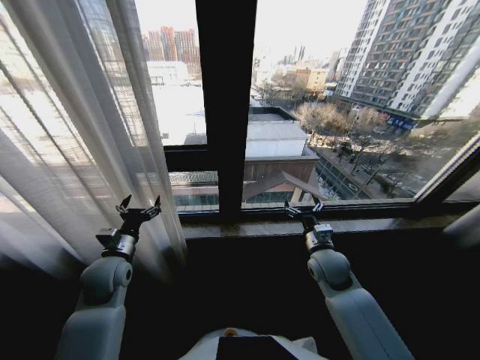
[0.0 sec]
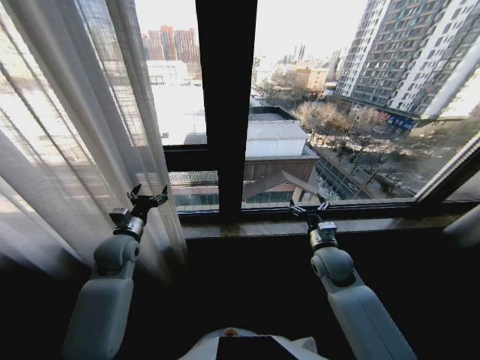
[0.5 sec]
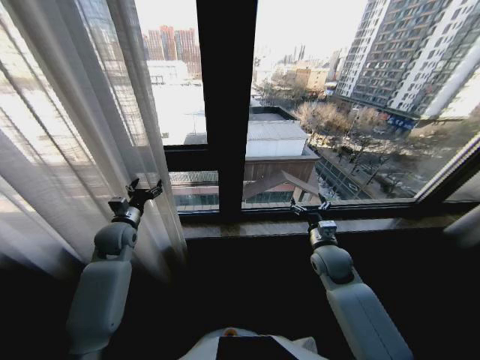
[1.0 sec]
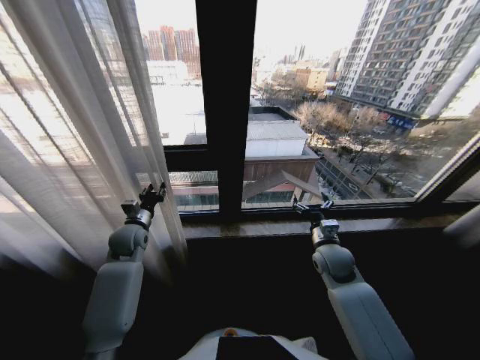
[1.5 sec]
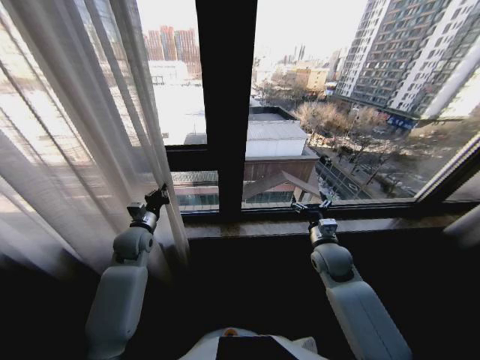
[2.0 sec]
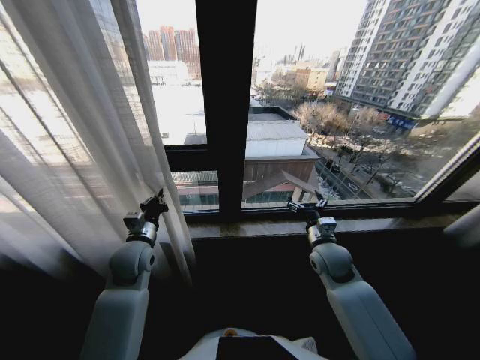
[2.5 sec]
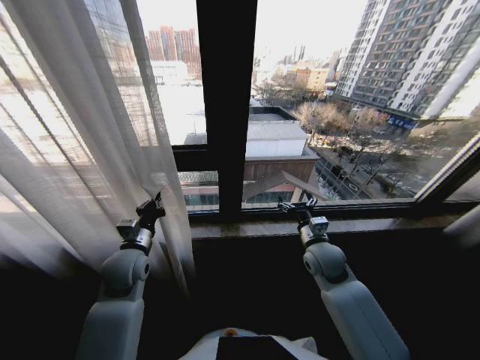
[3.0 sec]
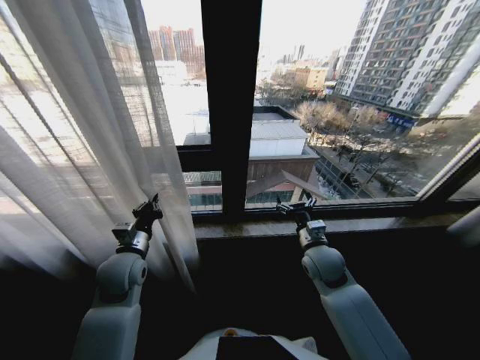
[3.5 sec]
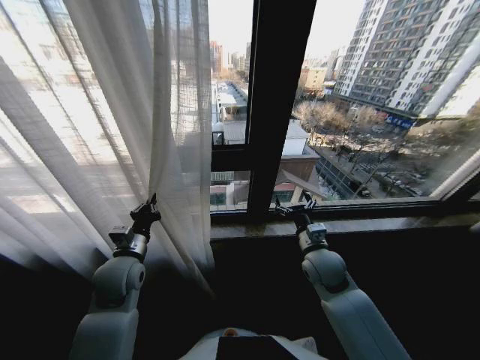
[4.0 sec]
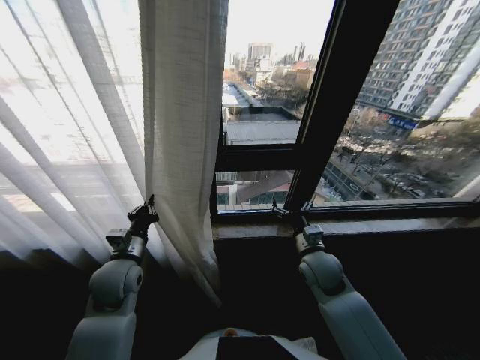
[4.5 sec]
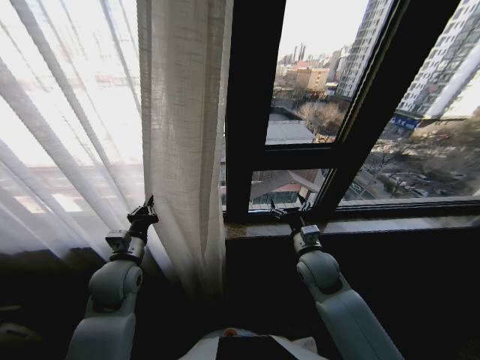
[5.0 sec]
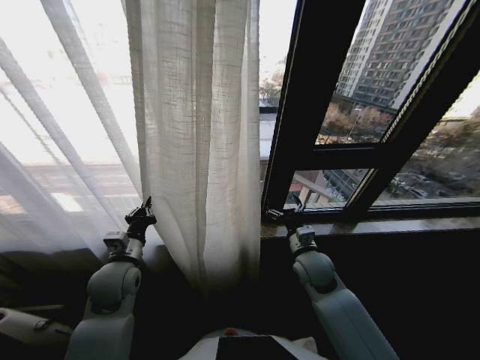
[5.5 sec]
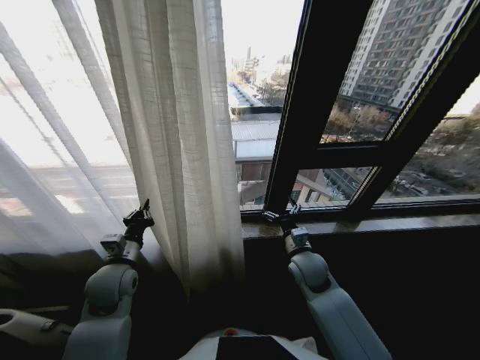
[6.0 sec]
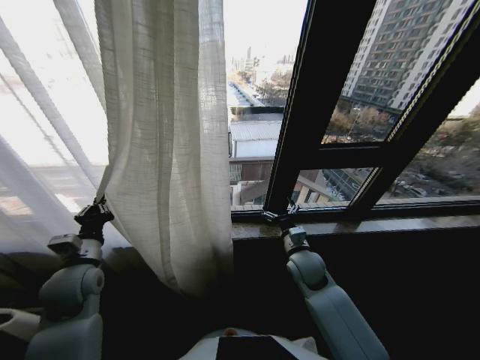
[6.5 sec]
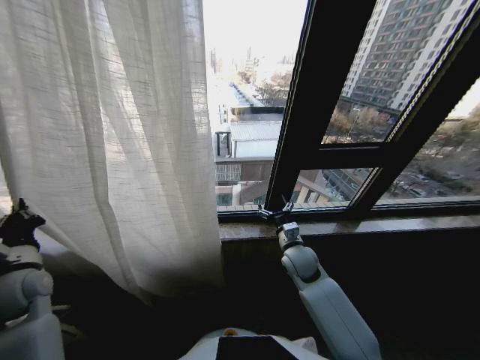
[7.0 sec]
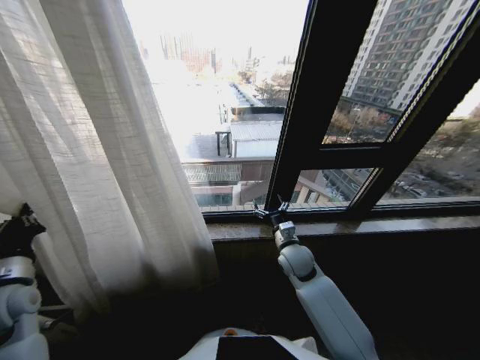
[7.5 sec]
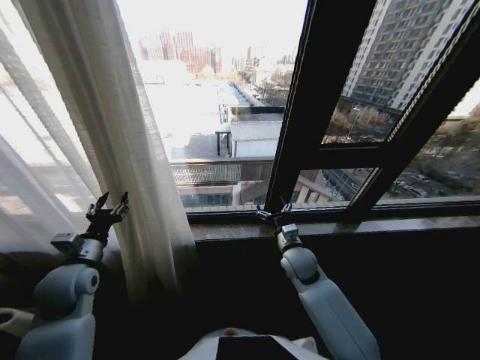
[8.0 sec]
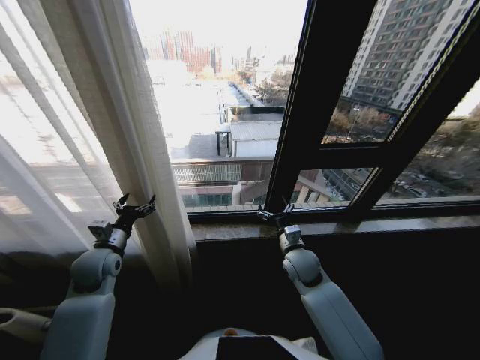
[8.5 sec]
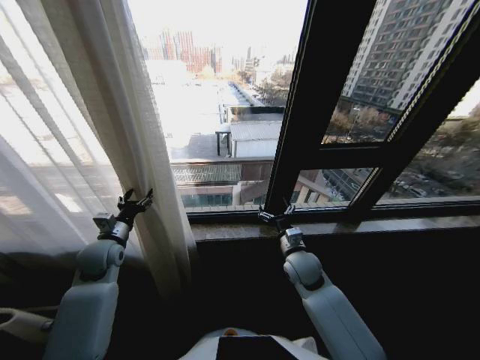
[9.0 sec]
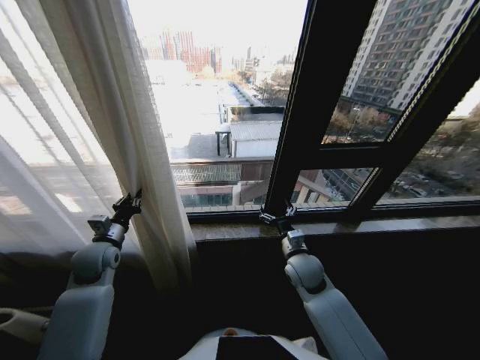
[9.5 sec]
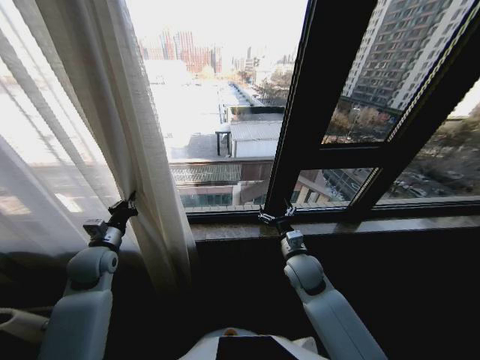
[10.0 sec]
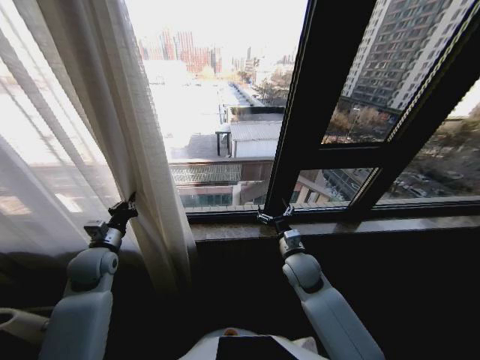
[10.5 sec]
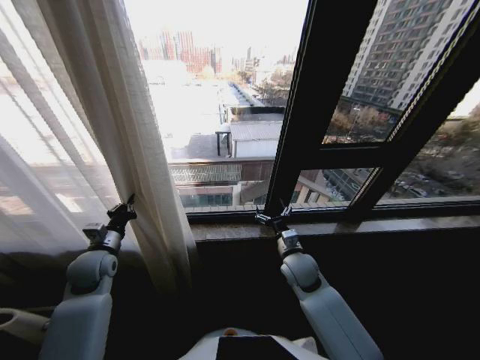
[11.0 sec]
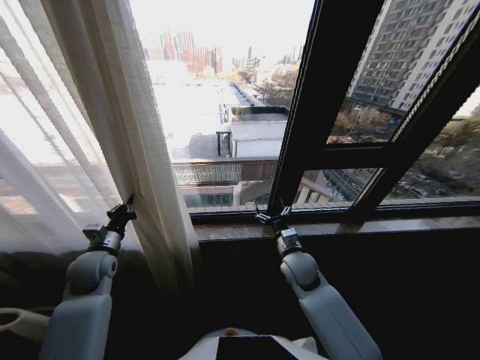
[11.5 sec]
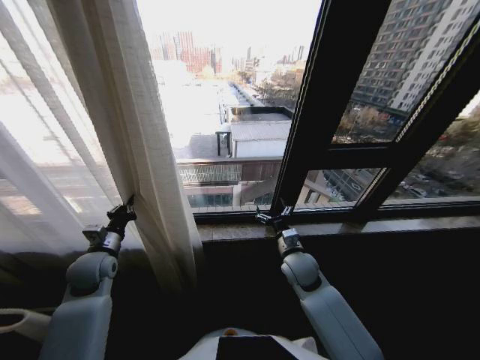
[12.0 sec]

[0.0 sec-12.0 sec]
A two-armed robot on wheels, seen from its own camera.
Task of the whole recording: Open the curtains by pulling them apart, changing their state from closed to fully open.
0.0 sec to 2.0 sec: The left gripper is displaced forward by some 10 cm, and closes its fingers.
2.0 sec to 4.0 sec: The left gripper is displaced backward by about 10 cm. The right gripper changes place by approximately 5 cm.
6.0 sec to 8.0 sec: The left gripper heads to the left, covering some 10 cm, and opens up.
8.0 sec to 10.0 sec: The left gripper heads forward, covering approximately 5 cm, and closes.
10.0 sec to 12.0 sec: There are only small adjustments of the grippers.

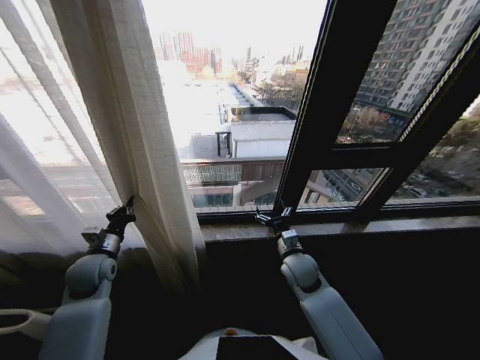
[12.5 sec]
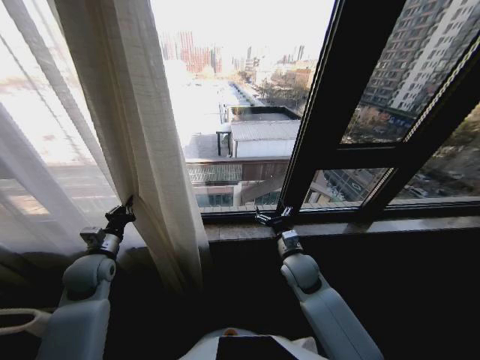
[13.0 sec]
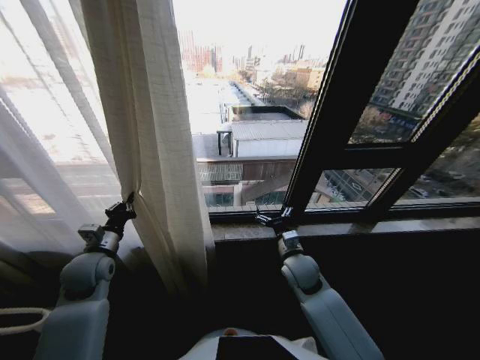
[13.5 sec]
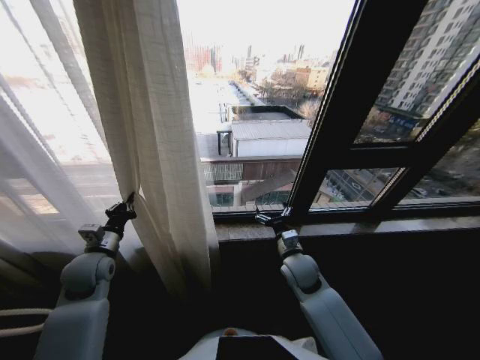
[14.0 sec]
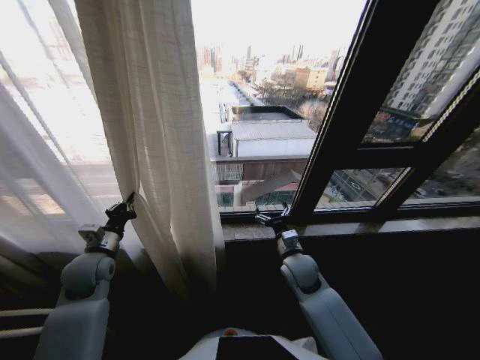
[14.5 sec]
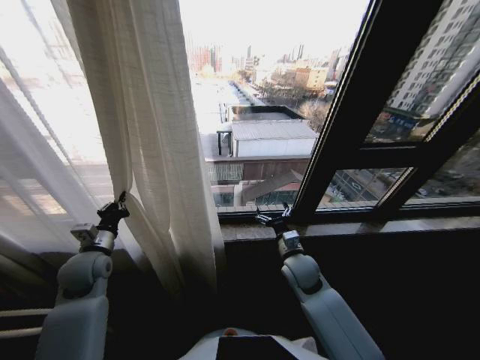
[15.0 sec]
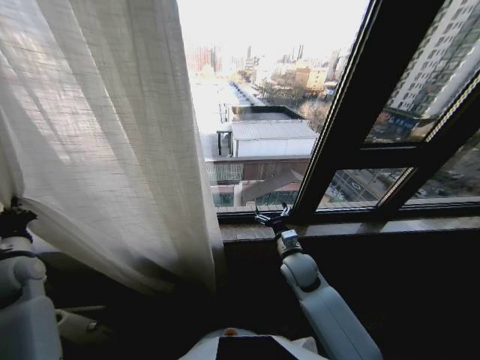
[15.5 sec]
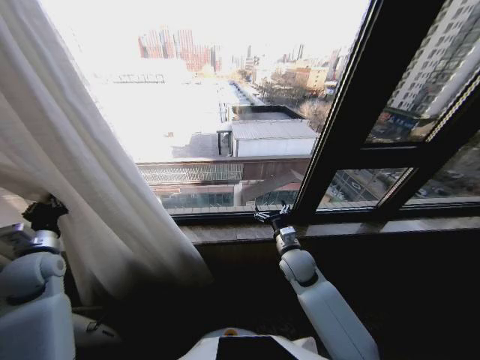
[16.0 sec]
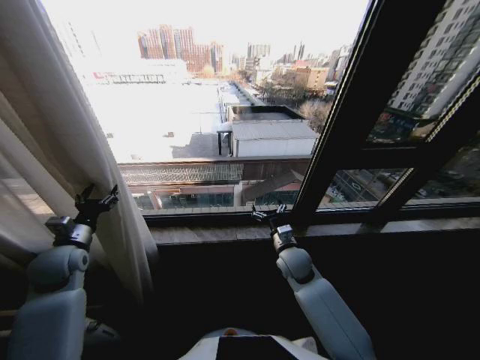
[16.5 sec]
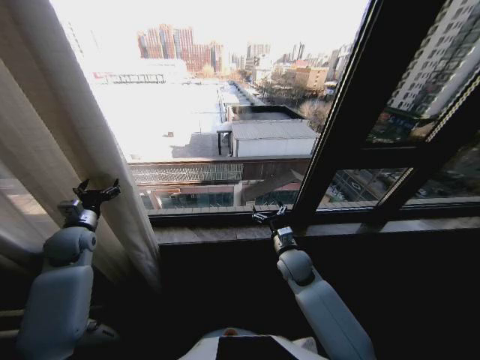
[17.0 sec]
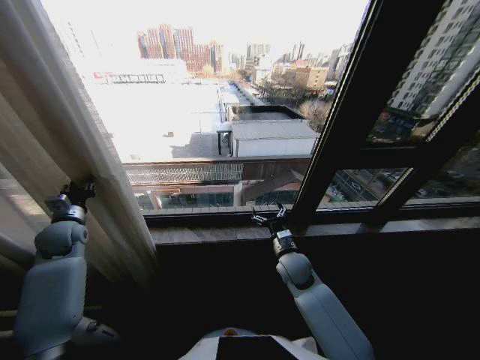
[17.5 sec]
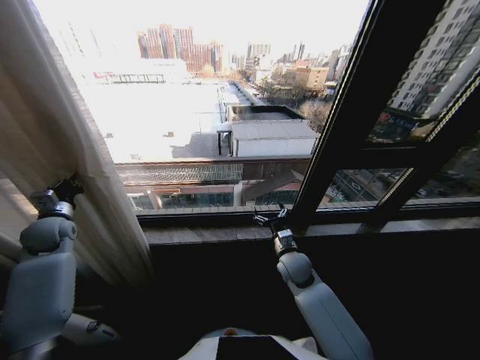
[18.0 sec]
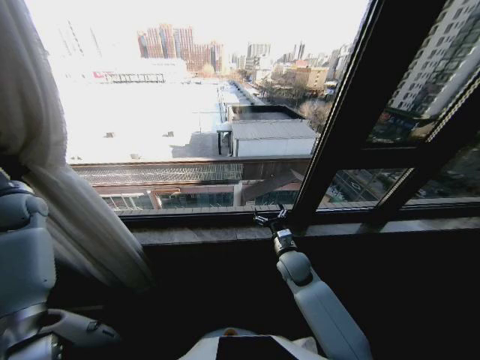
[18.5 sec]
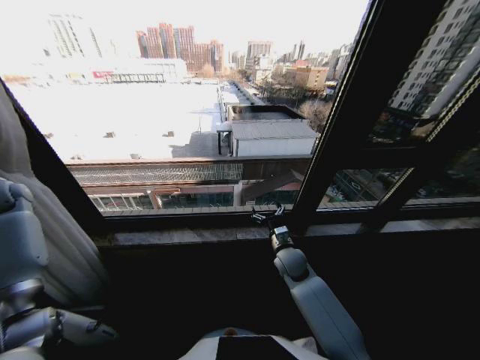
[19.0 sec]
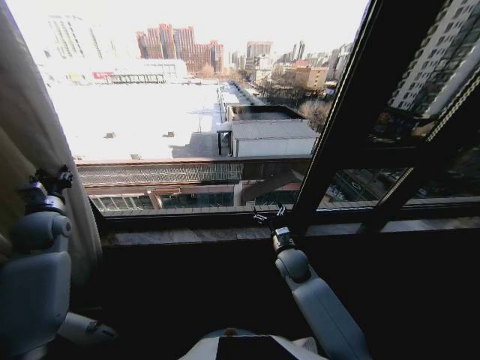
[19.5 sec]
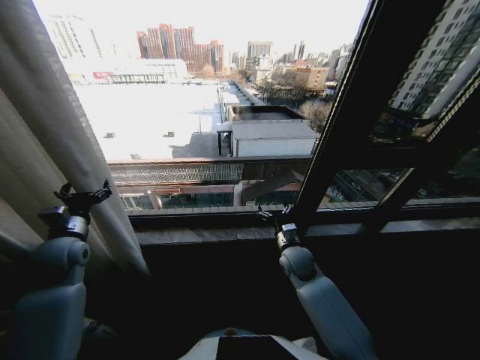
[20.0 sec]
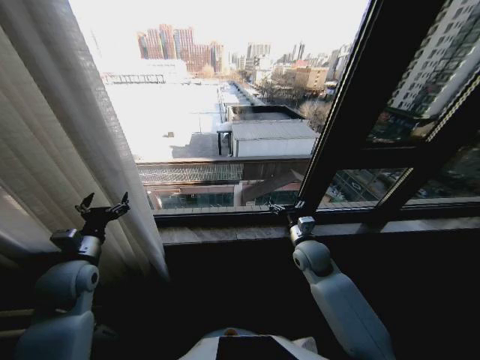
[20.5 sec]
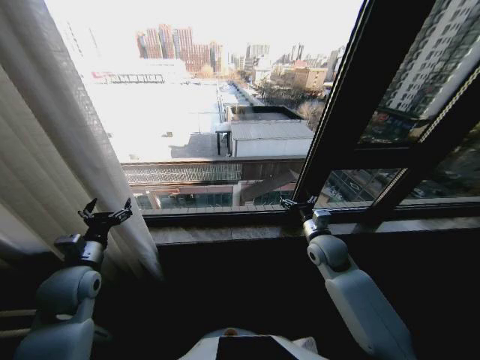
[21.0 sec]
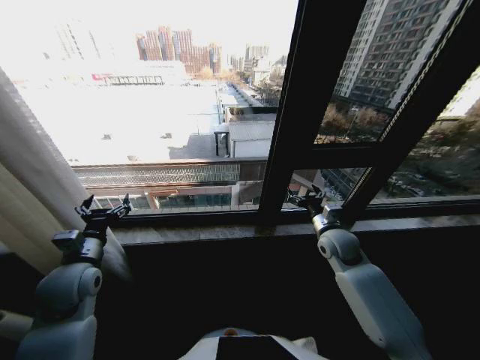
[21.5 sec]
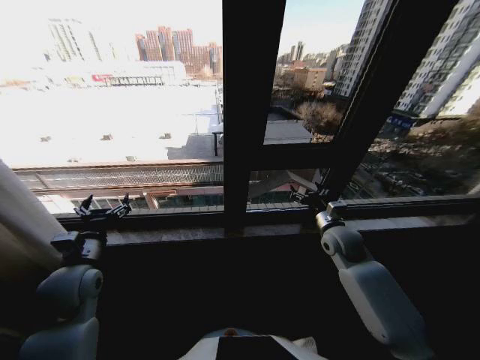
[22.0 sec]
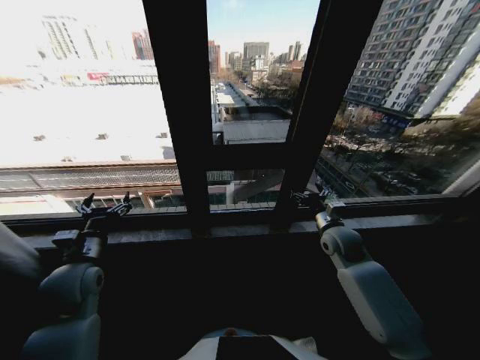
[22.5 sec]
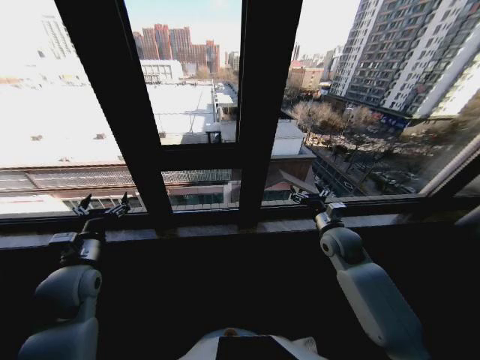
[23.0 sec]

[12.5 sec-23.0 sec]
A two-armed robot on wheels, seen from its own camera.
Task of the whole recording: Open the curtains by pulling them apart, changing their state from closed to fully open.
14.5 sec to 16.5 sec: The left gripper goes about 5 cm to the left, and opens.
16.5 sec to 19.0 sec: The left gripper is displaced to the left, forward and upward by roughly 25 cm, and closes up.
19.0 sec to 21.0 sec: The right gripper is displaced to the right and upward by roughly 10 cm. Meanwhile the left gripper travels to the right, backward and downward by roughly 35 cm, and opens its fingers.

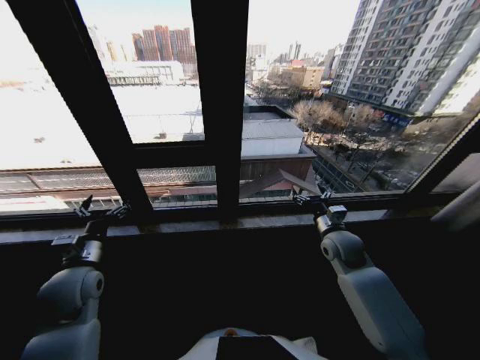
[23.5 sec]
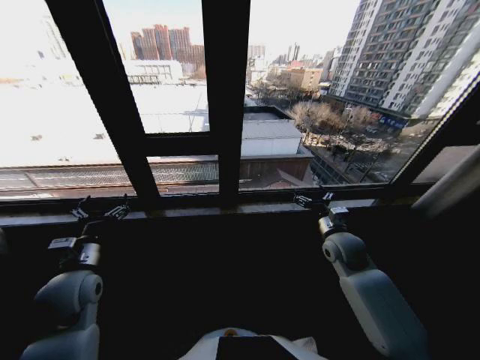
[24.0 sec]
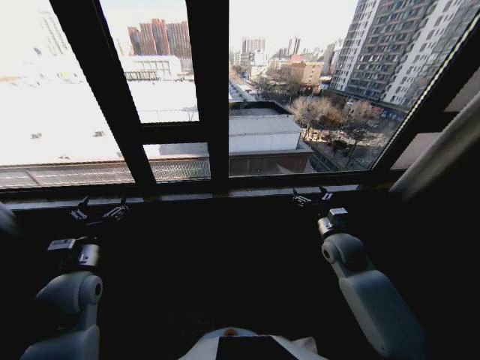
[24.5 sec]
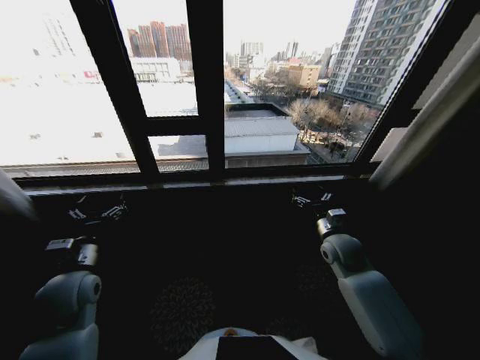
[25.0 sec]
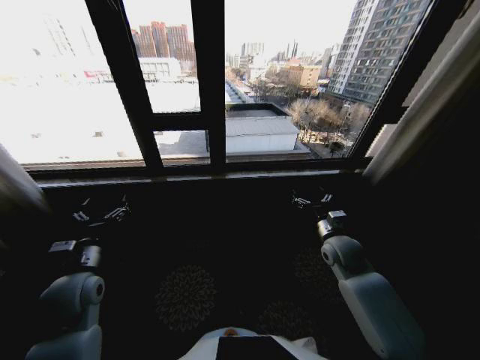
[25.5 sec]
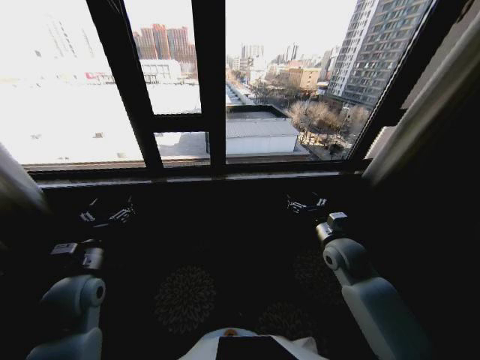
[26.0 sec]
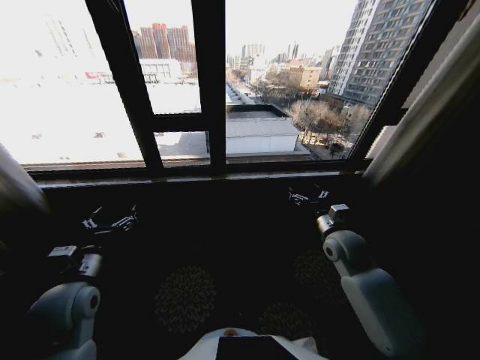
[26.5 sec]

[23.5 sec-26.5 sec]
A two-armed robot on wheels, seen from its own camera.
Task of the whole recording: Open the curtains by pulling them apart, changing their state from closed to fully open.
25.0 sec to 26.5 sec: The grippers move only a little.
